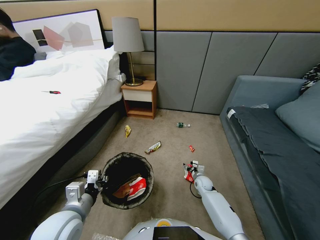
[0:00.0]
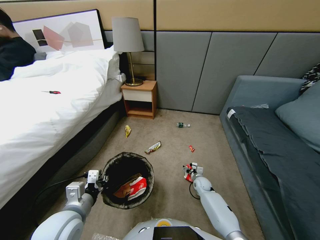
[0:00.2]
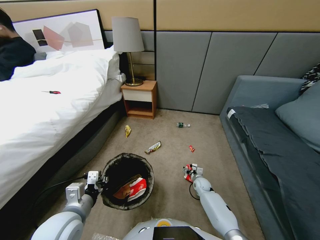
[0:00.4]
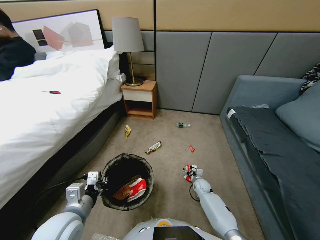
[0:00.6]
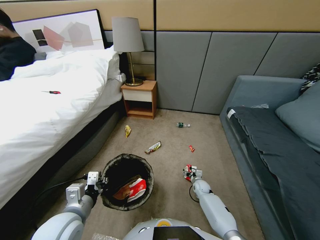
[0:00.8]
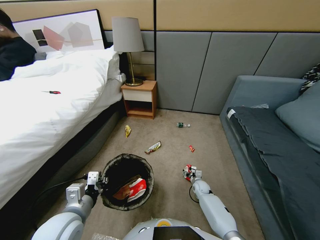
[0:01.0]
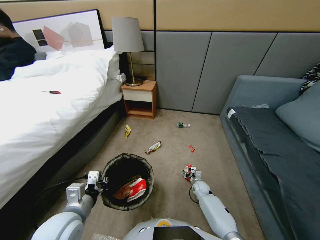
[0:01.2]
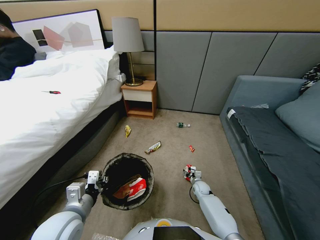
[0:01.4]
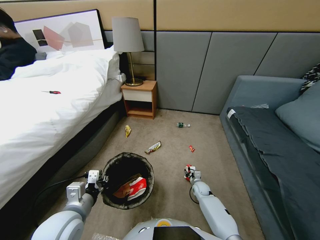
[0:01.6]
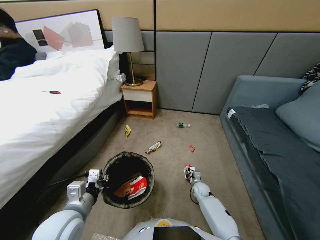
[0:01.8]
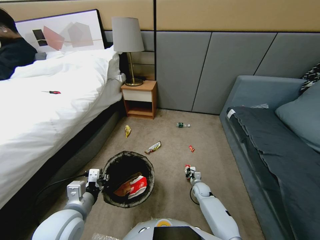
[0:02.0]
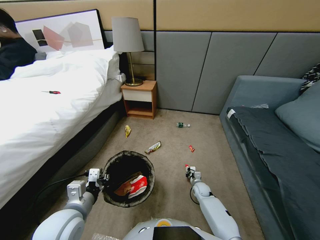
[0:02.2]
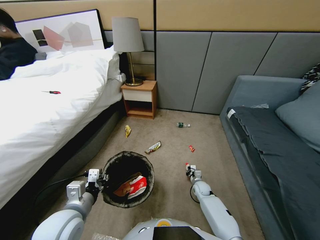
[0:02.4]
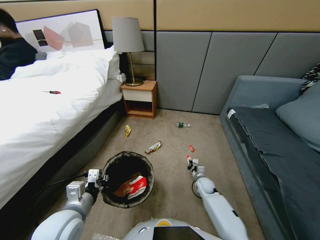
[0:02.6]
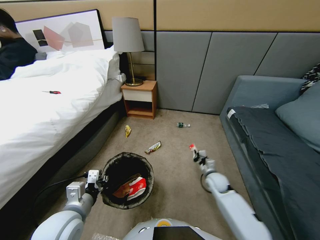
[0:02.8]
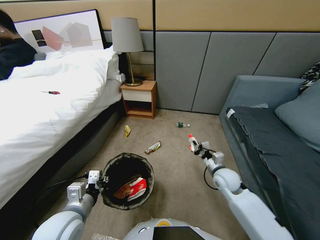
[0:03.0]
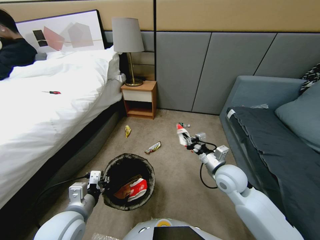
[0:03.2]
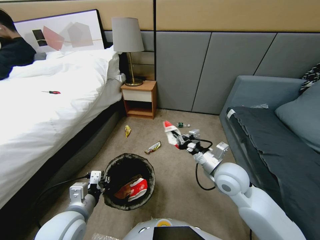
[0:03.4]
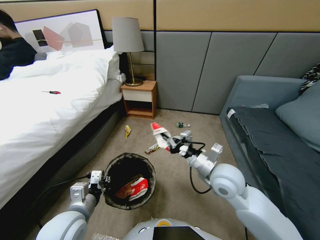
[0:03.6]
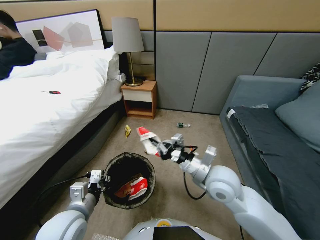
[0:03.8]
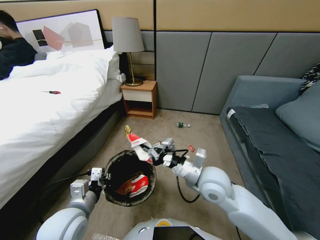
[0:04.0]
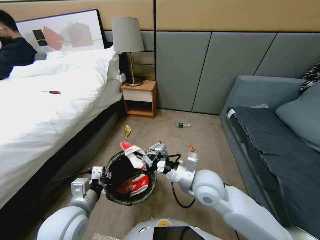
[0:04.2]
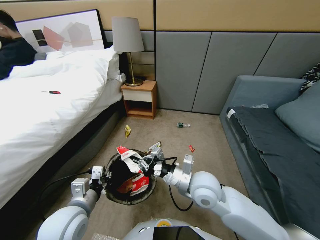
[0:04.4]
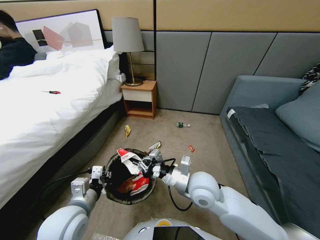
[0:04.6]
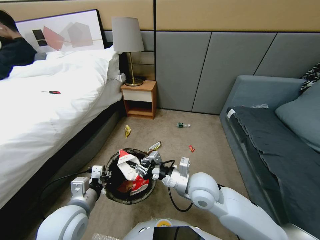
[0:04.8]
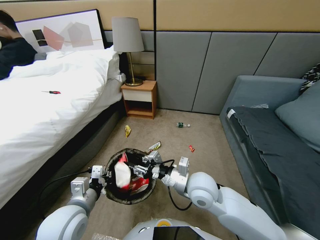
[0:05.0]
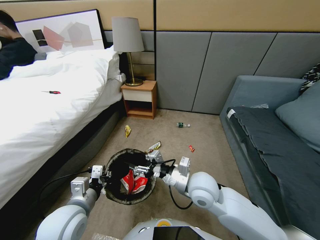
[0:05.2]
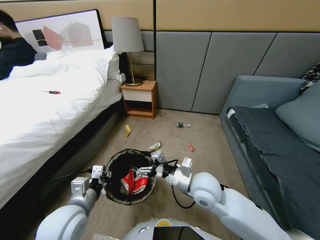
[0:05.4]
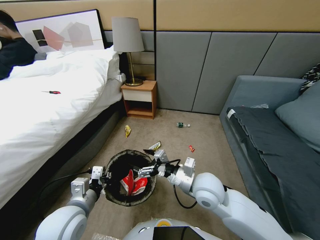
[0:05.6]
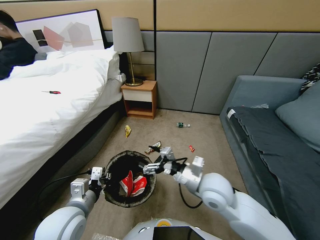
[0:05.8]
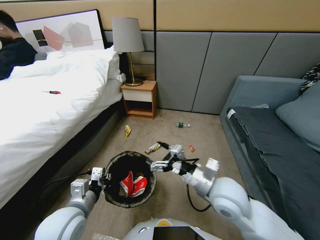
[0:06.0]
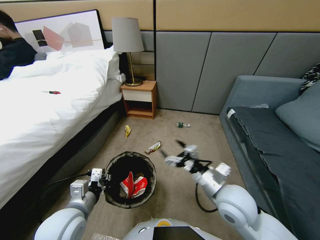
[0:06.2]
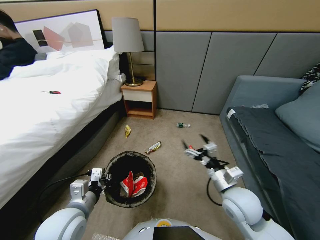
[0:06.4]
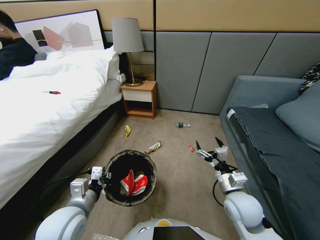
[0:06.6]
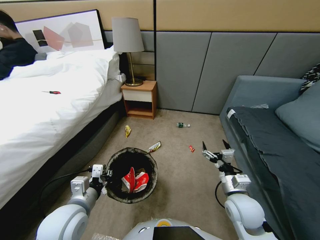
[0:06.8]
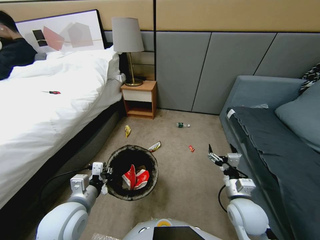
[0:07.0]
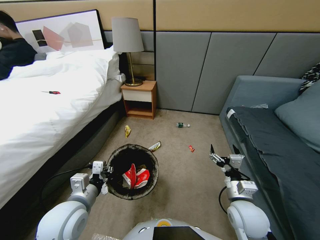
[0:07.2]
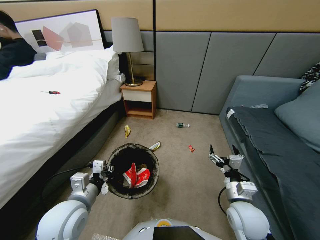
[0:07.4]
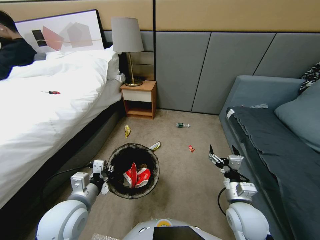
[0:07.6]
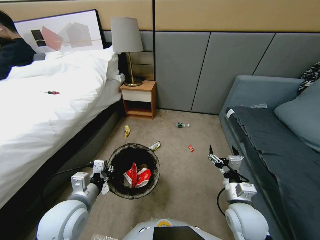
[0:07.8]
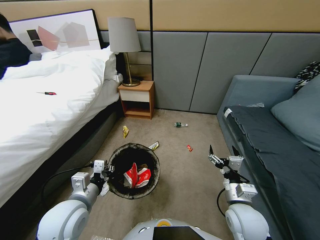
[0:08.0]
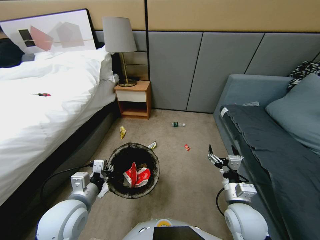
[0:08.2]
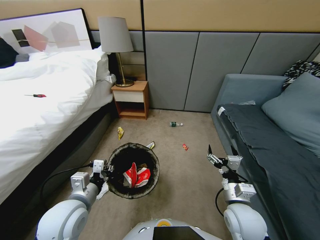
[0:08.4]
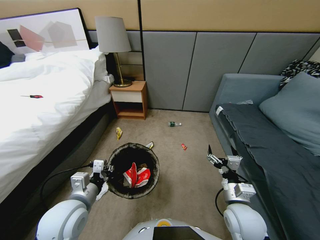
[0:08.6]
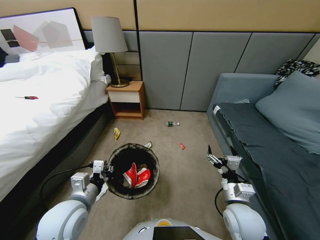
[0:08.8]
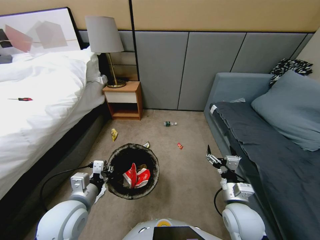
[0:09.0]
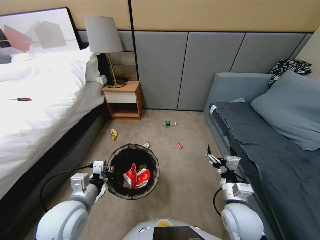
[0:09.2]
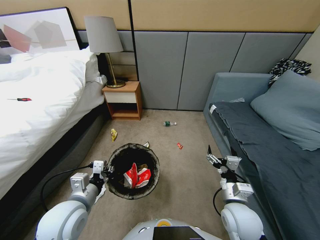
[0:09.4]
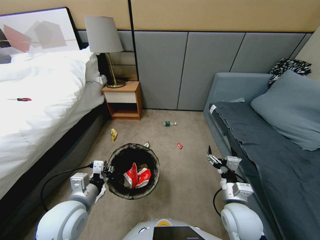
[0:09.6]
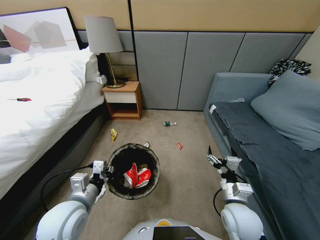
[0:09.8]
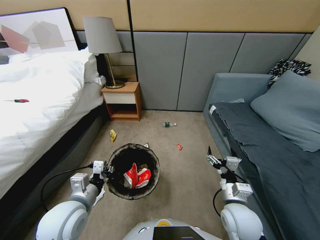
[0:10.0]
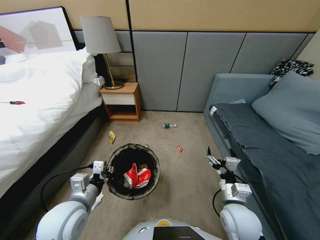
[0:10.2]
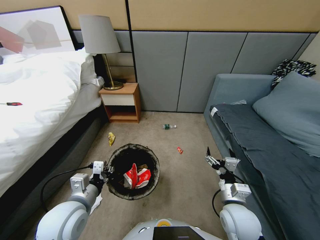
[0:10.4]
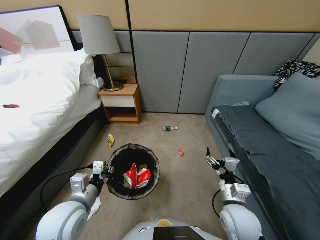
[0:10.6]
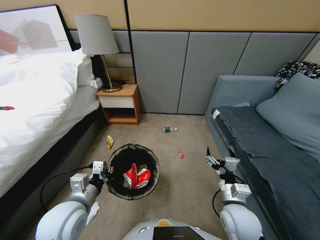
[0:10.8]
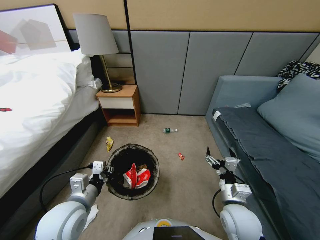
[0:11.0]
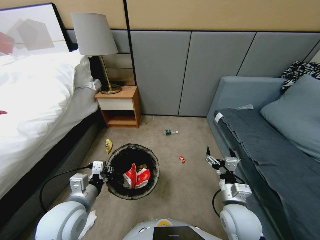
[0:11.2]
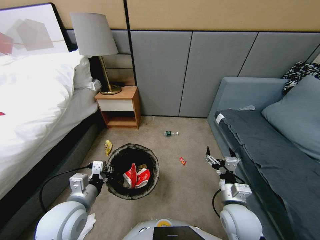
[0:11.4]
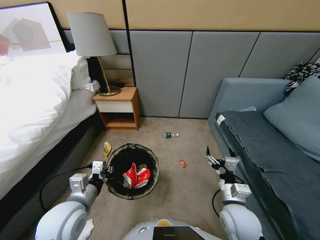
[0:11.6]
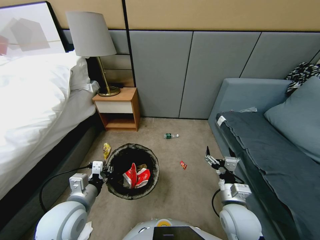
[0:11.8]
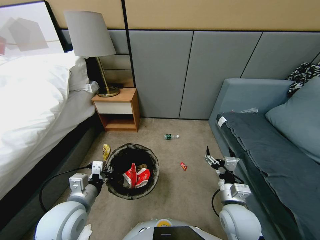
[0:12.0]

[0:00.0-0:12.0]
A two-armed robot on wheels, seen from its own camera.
Task of the whole recording: Pick up the trash bin, then pick up the garbage from the floor and place it into the trash bin.
0:00.0 to 0:01.6: The right gripper closes up.
0:01.6 to 0:03.0: The right gripper is displaced upward by about 30 cm, and closes its fingers.
0:03.0 to 0:04.4: The right gripper moves to the left, approximately 10 cm.
0:04.4 to 0:06.0: The right gripper is displaced to the right by approximately 5 cm, and opens its fingers.
0:06.0 to 0:07.6: The right gripper heads downward and to the right, covering about 10 cm.
0:09.0 to 0:12.0: Neither gripper changes place.

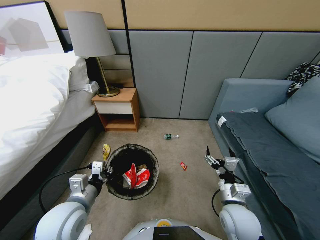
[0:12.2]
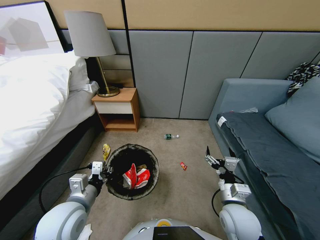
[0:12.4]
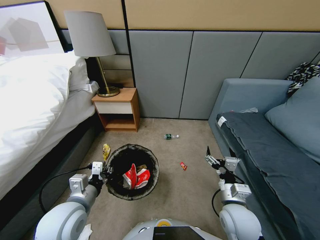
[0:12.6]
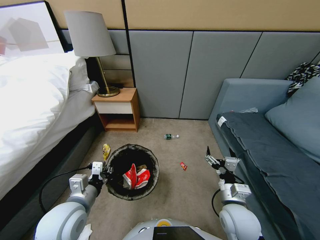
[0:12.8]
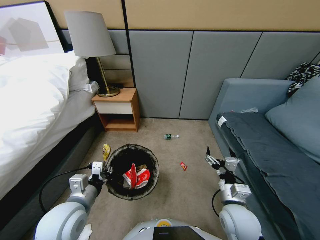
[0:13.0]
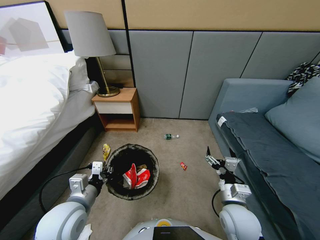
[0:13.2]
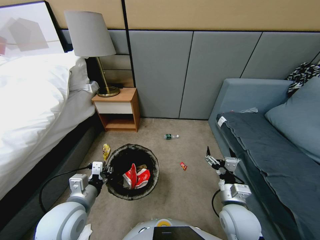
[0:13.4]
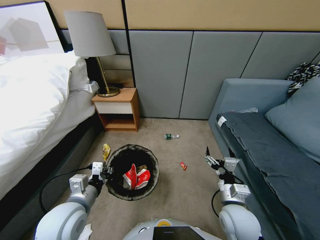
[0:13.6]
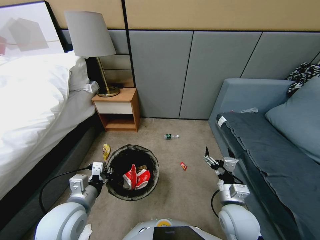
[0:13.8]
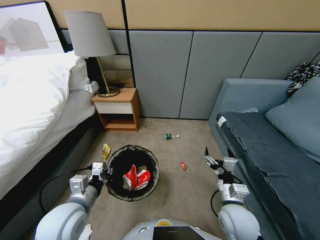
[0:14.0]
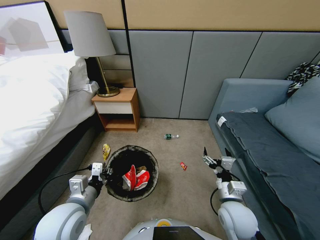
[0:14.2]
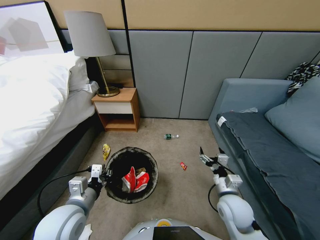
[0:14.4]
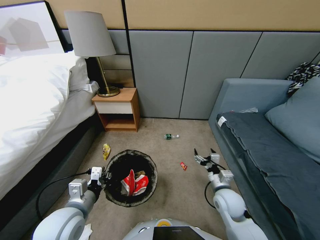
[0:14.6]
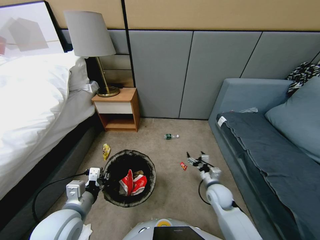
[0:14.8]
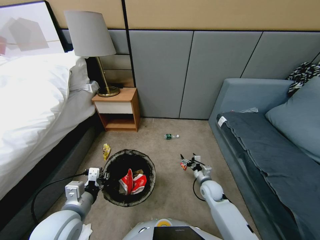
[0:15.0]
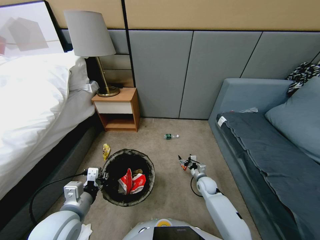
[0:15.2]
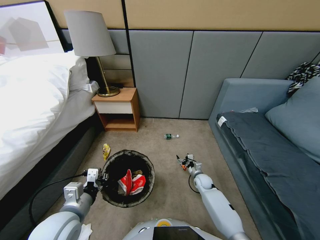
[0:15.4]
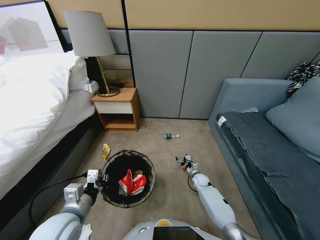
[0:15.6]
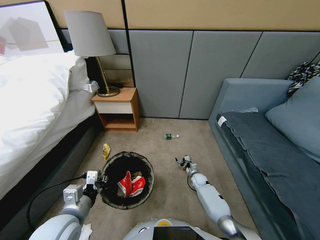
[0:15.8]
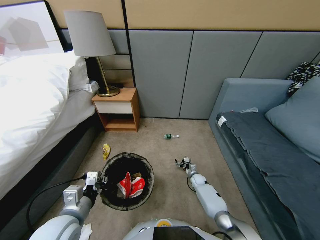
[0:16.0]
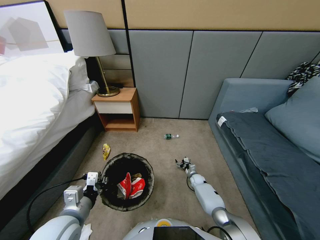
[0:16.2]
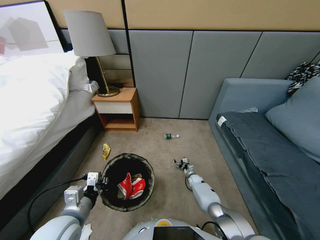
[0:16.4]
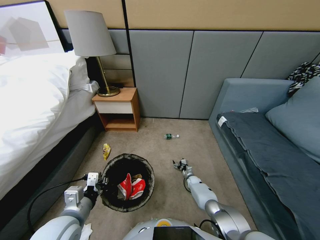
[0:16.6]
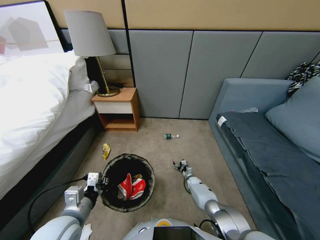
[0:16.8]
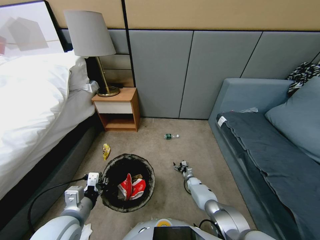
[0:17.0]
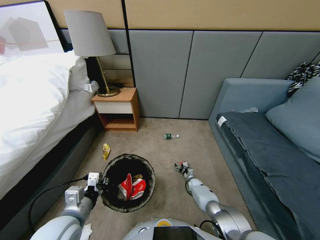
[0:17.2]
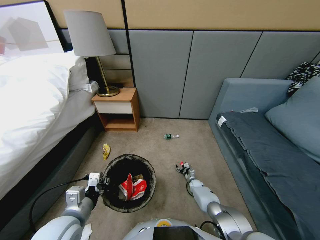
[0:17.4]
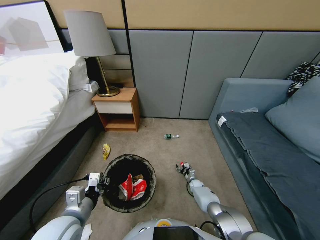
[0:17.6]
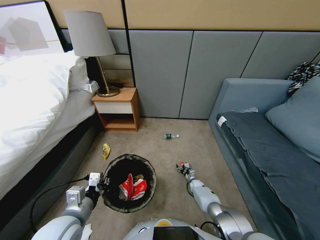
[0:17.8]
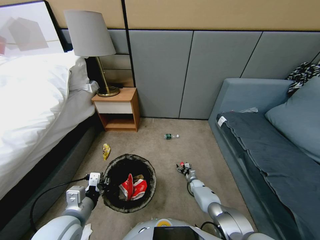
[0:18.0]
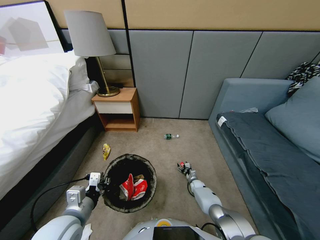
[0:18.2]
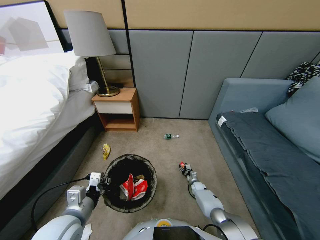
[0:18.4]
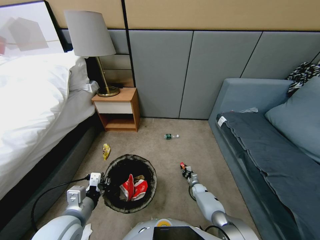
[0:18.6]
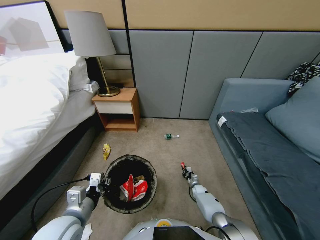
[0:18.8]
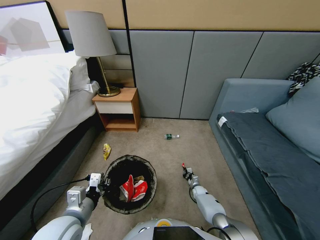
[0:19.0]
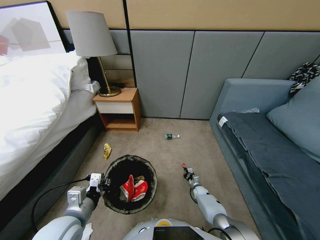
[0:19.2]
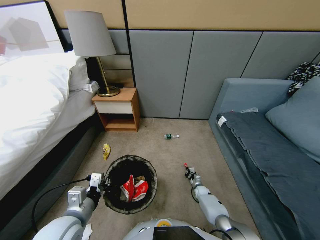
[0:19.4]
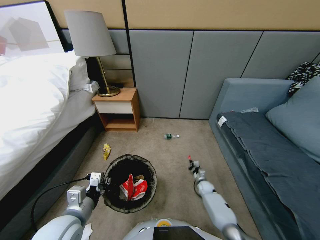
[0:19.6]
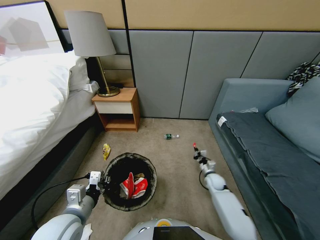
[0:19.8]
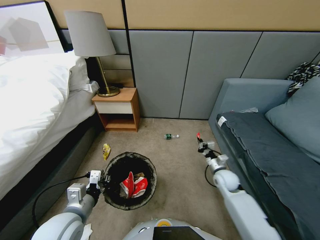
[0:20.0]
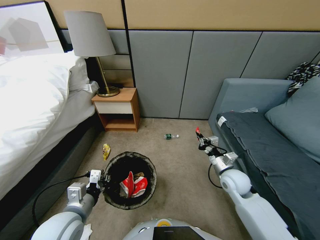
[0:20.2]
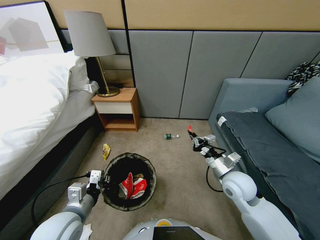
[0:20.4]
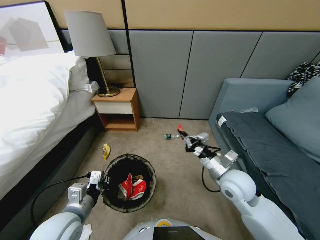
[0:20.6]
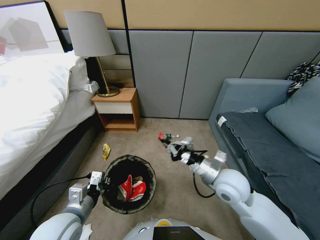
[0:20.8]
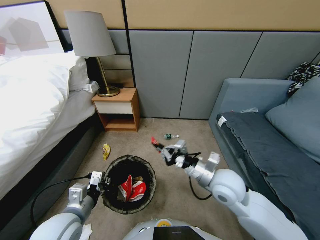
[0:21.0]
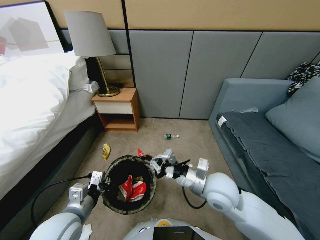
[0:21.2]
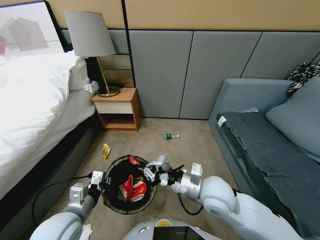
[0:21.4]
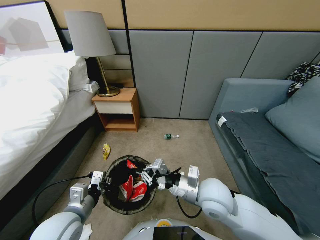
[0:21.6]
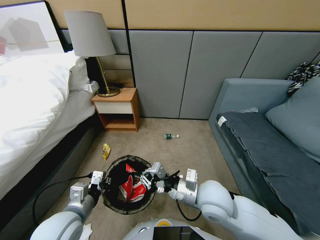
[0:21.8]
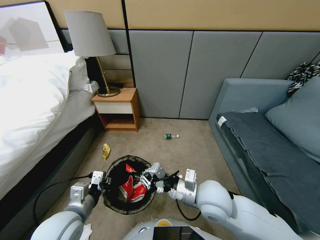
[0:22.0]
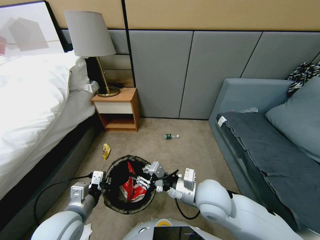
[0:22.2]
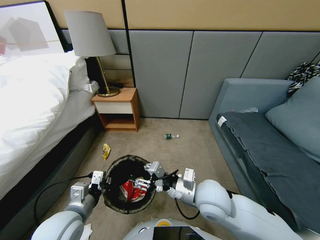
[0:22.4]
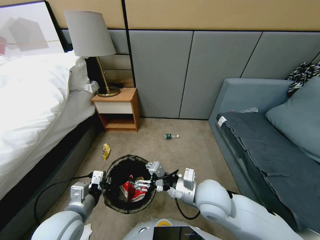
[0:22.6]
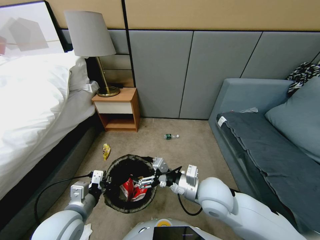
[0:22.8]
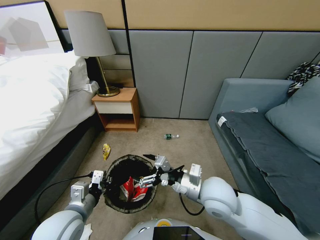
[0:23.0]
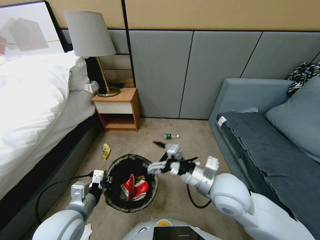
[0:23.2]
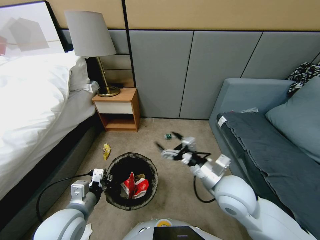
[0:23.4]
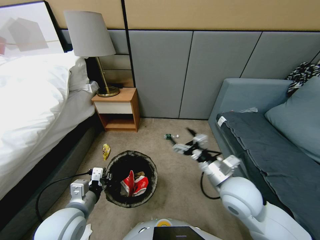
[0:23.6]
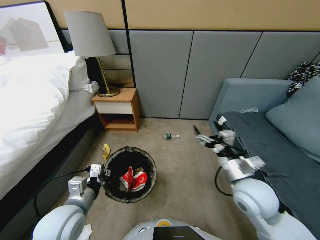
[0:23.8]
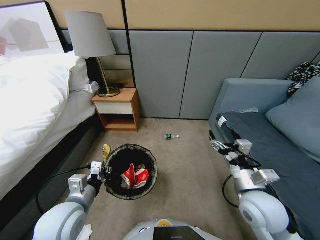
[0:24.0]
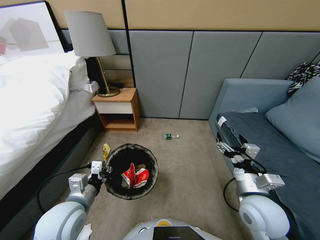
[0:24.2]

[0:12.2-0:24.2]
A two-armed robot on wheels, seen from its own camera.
Task of the whole recording: Pick up the trash bin, then pick up the garbage from the floor and place it into the trash bin.
0:12.2 to 0:13.8: Both grippers stay put.
0:13.8 to 0:15.2: The right gripper moves downward and forward, approximately 30 cm.
0:15.2 to 0:16.6: The right gripper heads downward, covering roughly 15 cm.
0:16.6 to 0:18.2: There are only small adjustments of the grippers.
0:18.2 to 0:19.8: The right gripper shifts roughly 25 cm upward, and closes.
0:19.8 to 0:21.2: The right gripper heads upward, to the left and backward, covering about 30 cm.
0:21.2 to 0:22.6: The right gripper opens its fingers.
0:22.6 to 0:24.2: The right gripper goes approximately 15 cm to the right.
